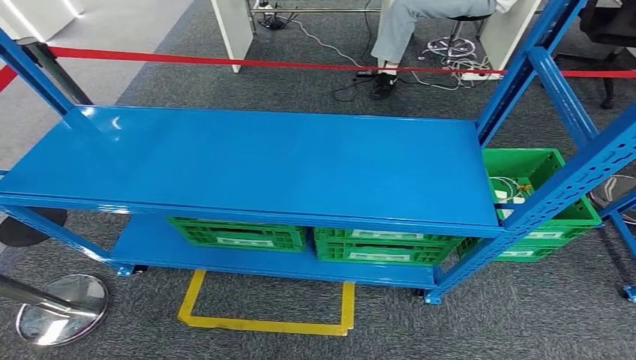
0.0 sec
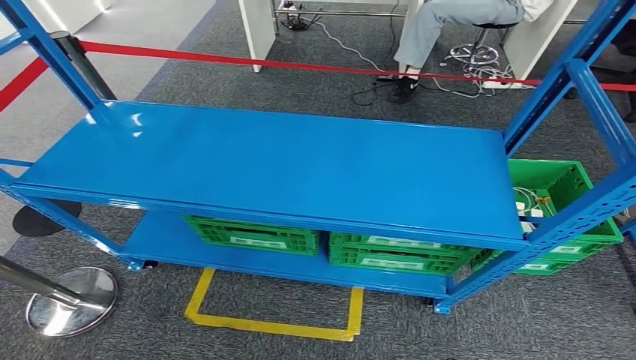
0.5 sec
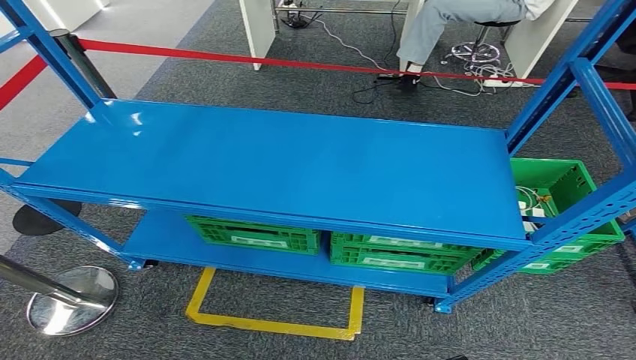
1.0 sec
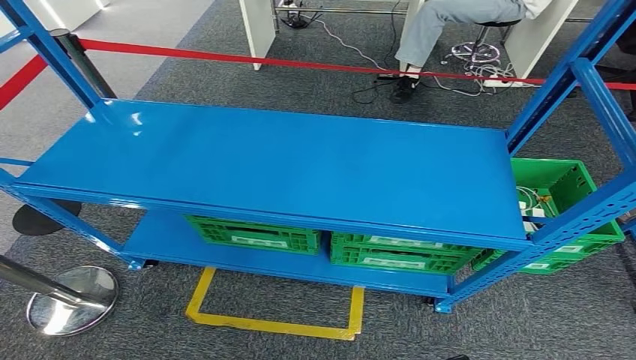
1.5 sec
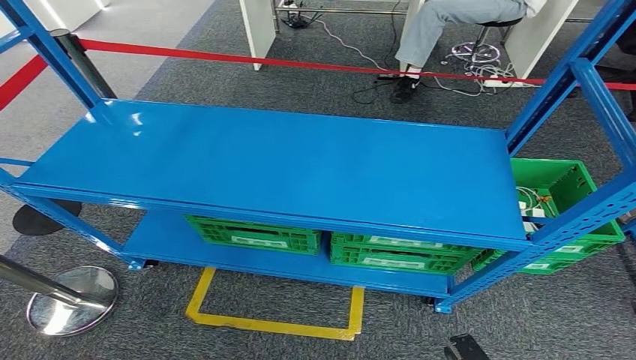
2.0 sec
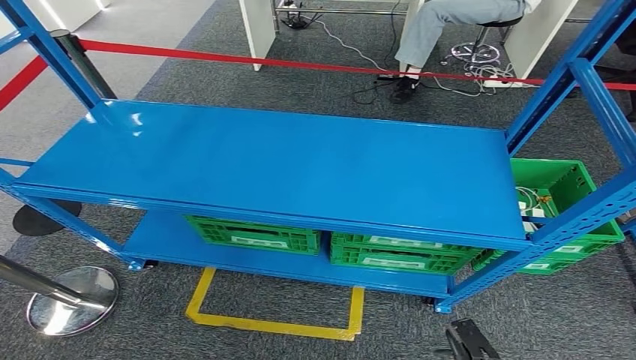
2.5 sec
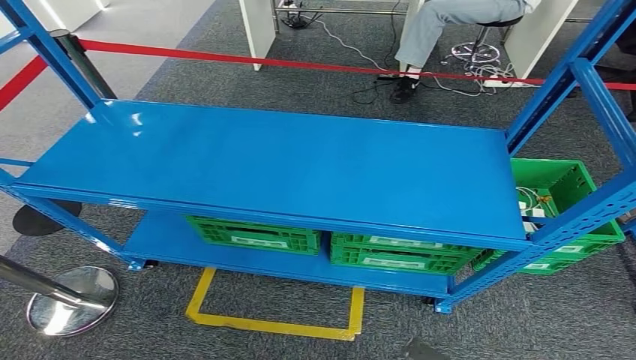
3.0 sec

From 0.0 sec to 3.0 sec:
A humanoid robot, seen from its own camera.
Step, from 0.0 sec to 3.0 sec: Return to the initial position at the workbench.
